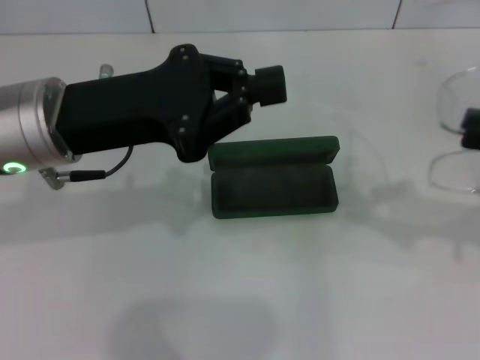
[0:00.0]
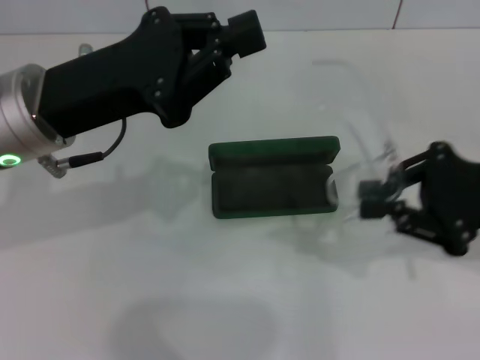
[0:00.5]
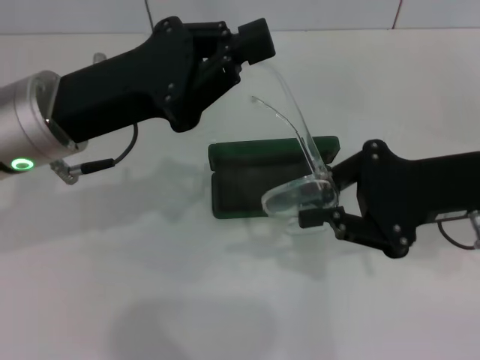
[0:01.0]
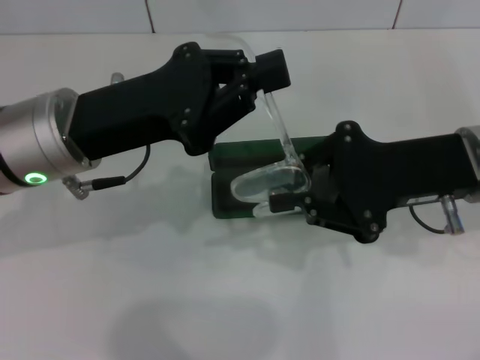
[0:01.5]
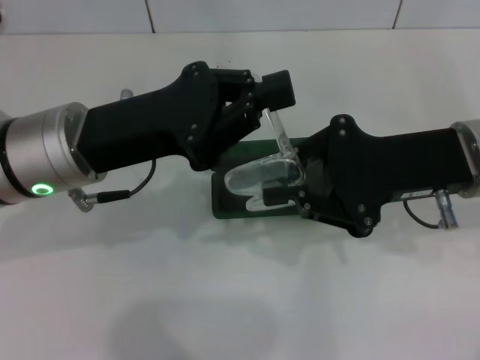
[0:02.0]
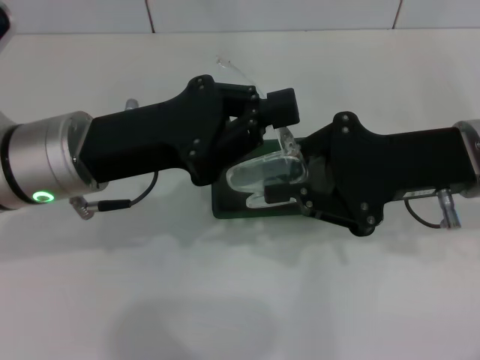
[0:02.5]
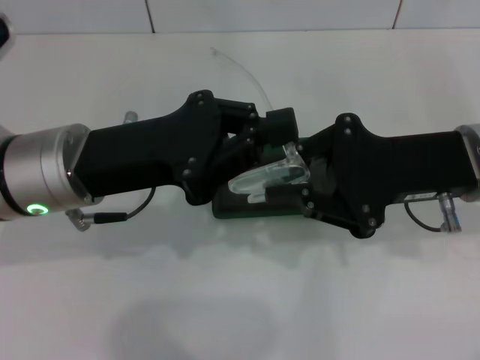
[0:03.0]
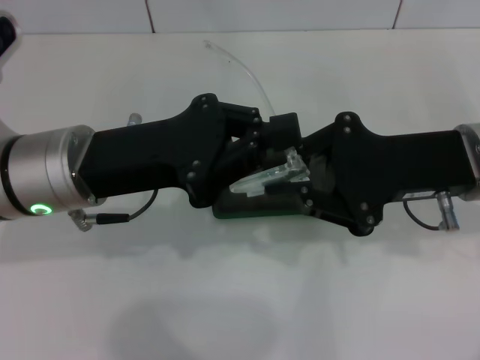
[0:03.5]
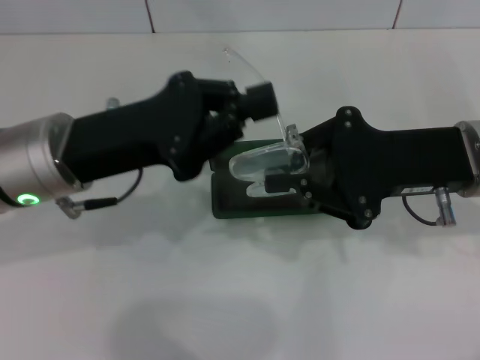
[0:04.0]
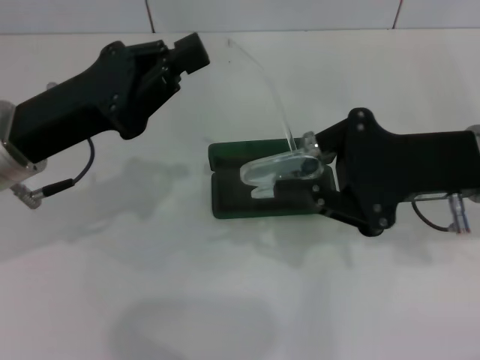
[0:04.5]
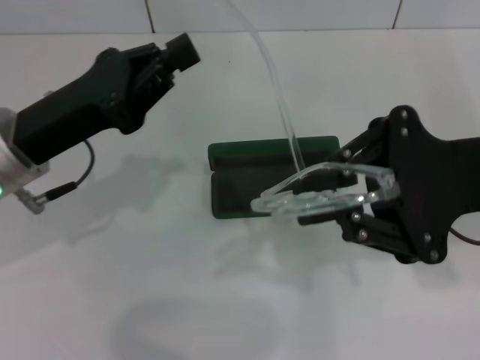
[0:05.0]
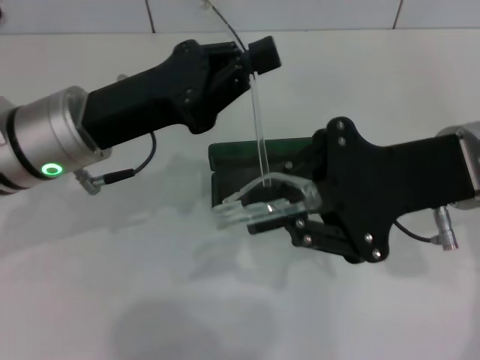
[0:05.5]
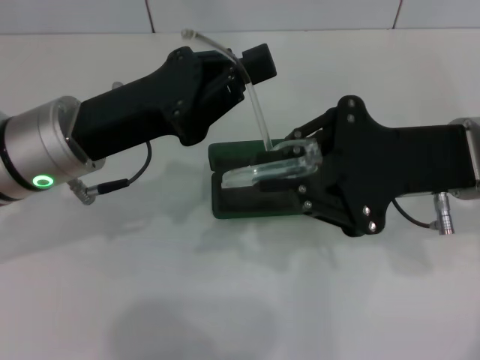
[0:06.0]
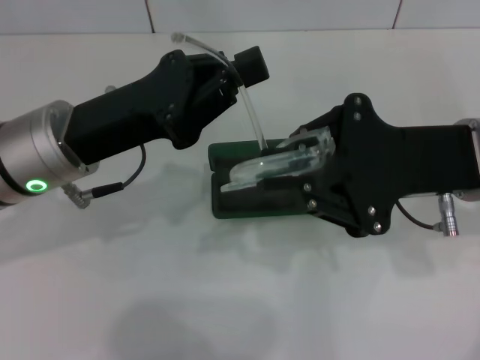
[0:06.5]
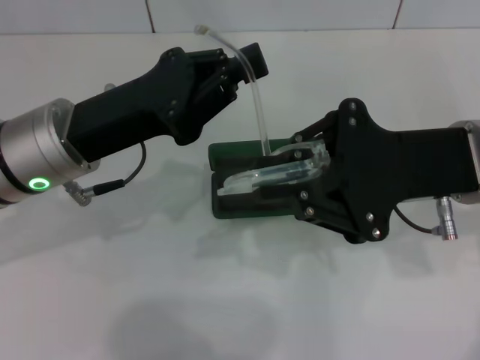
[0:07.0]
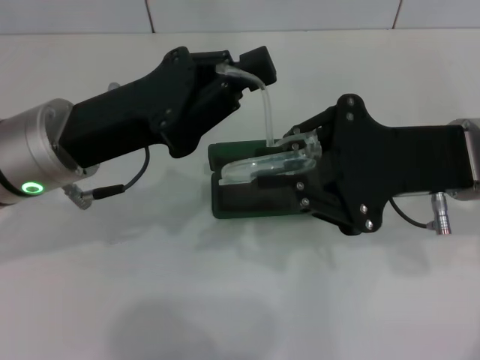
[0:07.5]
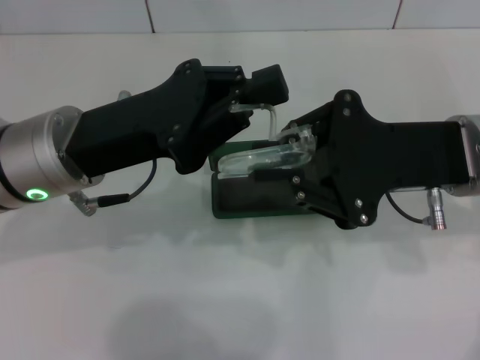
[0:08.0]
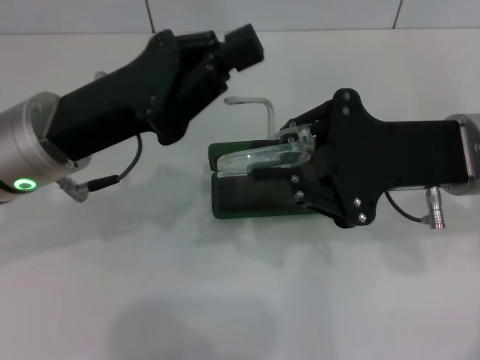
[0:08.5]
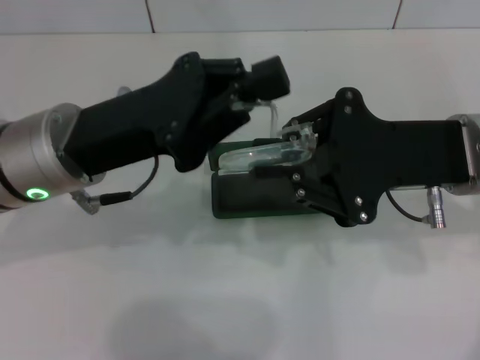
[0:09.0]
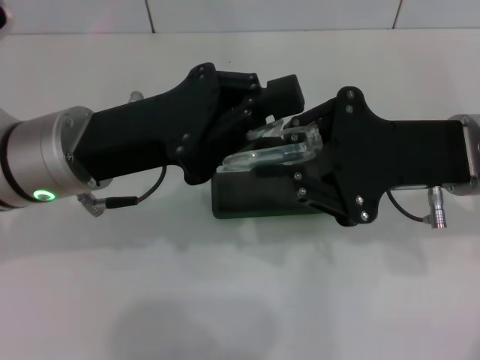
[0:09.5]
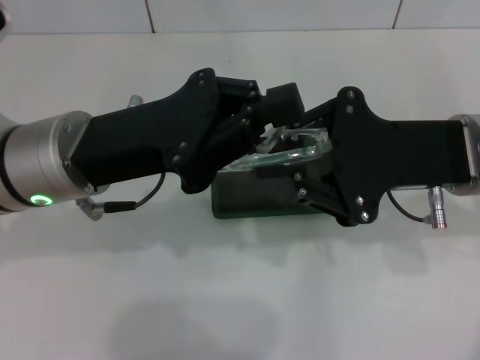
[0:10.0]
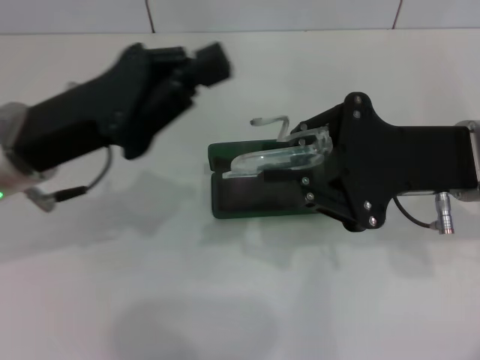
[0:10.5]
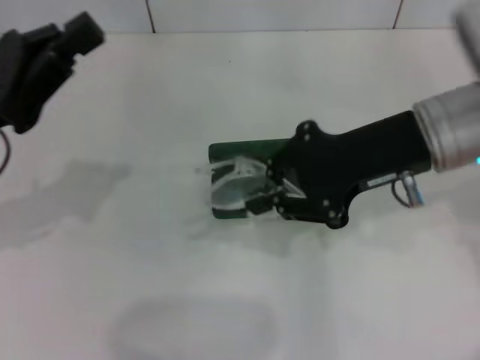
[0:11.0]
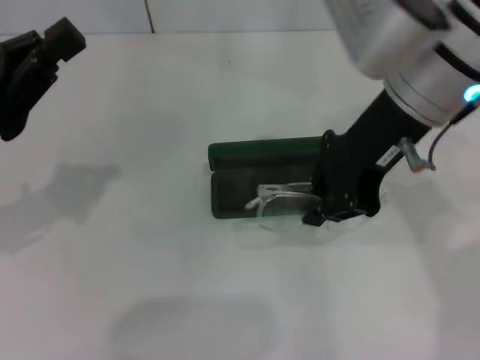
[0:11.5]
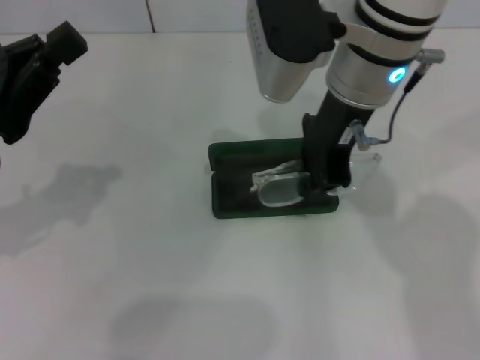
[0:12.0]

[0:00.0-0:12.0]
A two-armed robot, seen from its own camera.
Step, 0:00.0 to 0:10.0: Fold the frame with your left hand.
0:00.0 to 0:02.0: The right gripper travels to the left by some 15 cm.
0:02.0 to 0:04.0: The grippers move only a little.
0:06.0 to 0:10.0: The grippers make only small movements.
0:10.0 to 0:12.0: The right gripper is displaced to the left, forward and upward by about 15 cm. The left gripper shifts roughly 10 cm to the left.

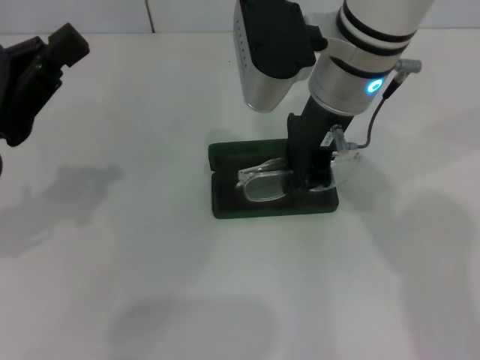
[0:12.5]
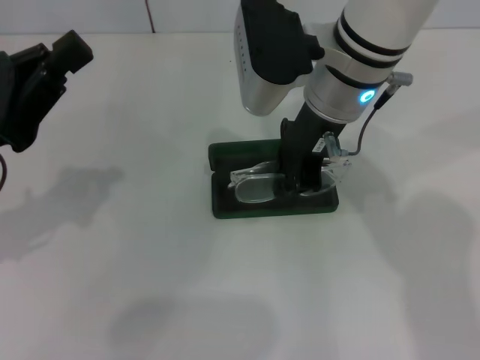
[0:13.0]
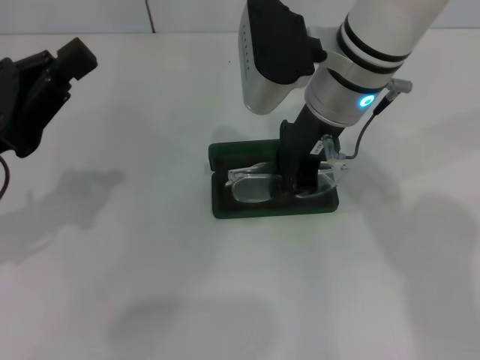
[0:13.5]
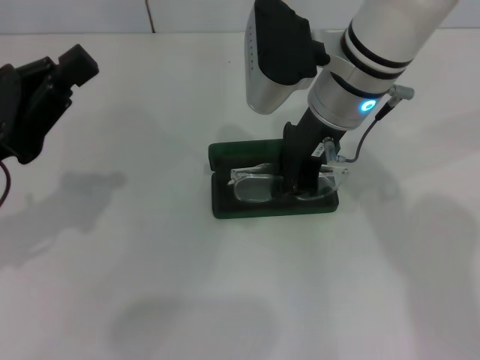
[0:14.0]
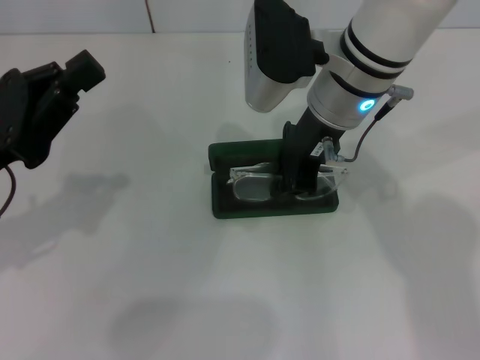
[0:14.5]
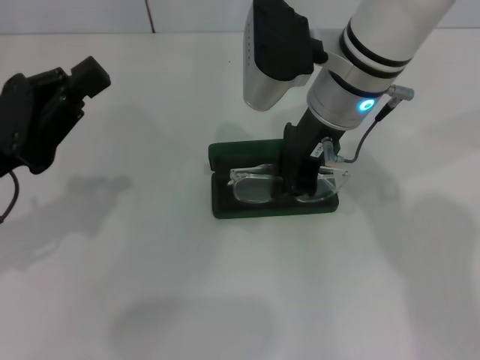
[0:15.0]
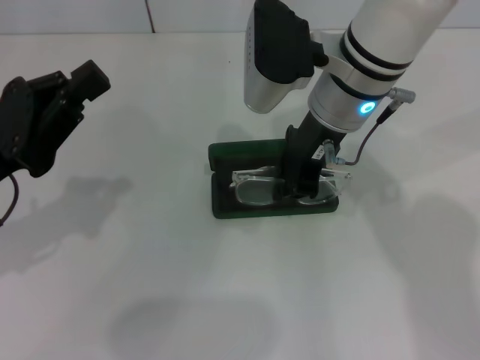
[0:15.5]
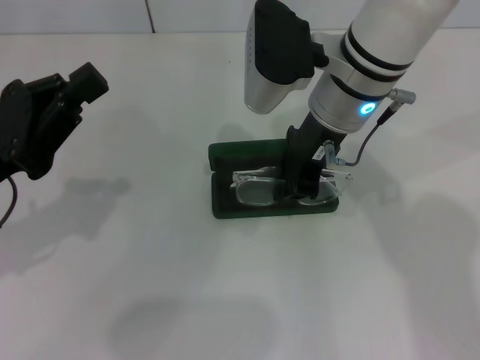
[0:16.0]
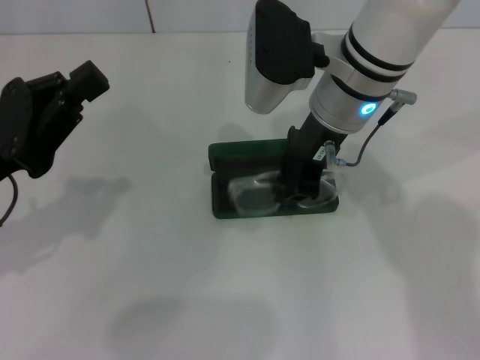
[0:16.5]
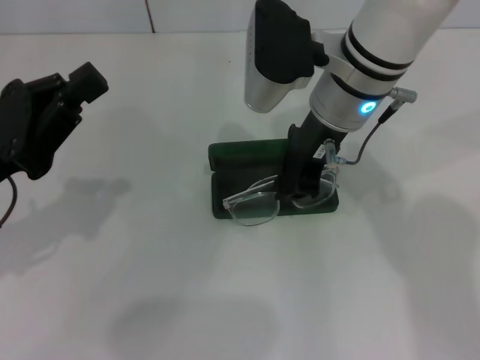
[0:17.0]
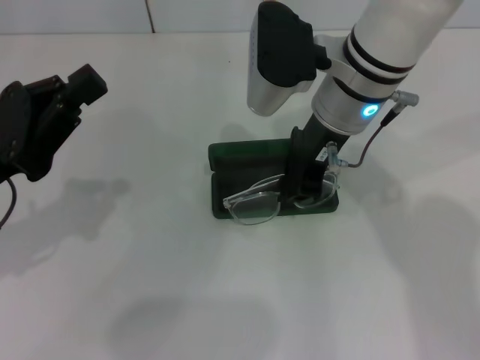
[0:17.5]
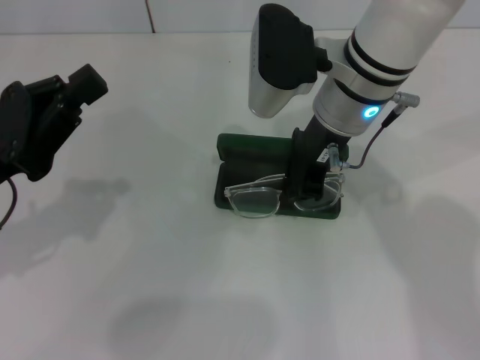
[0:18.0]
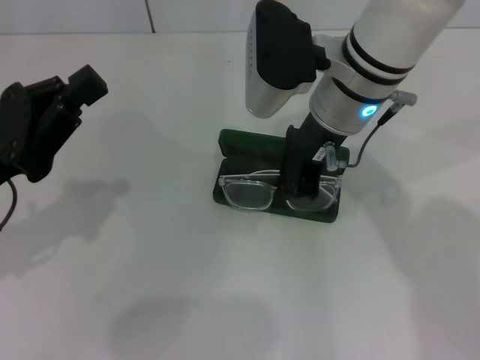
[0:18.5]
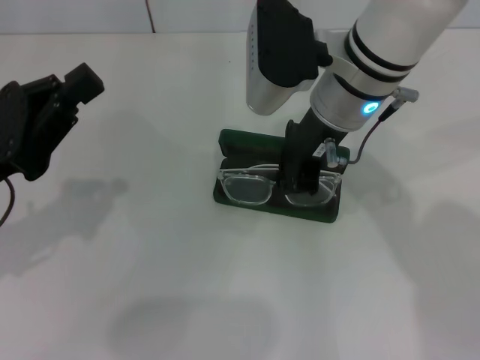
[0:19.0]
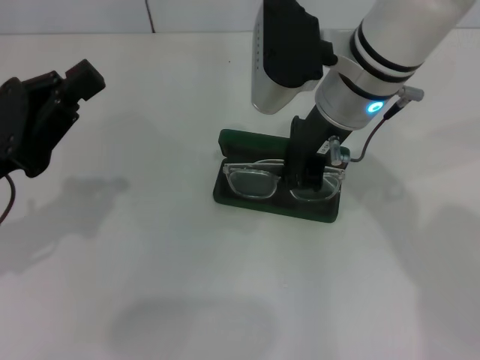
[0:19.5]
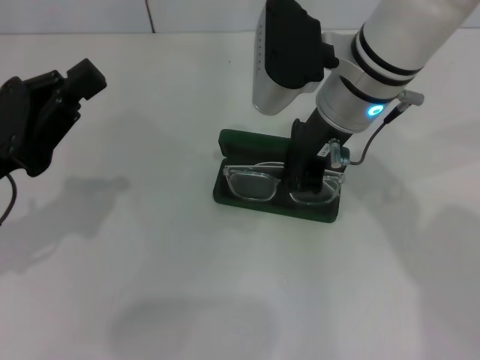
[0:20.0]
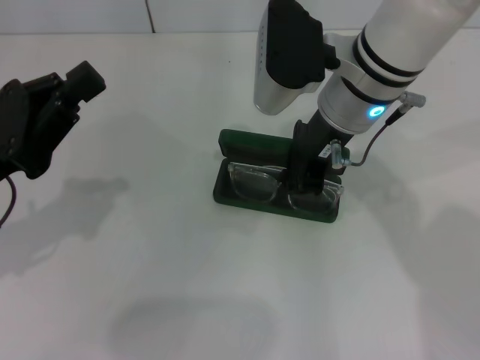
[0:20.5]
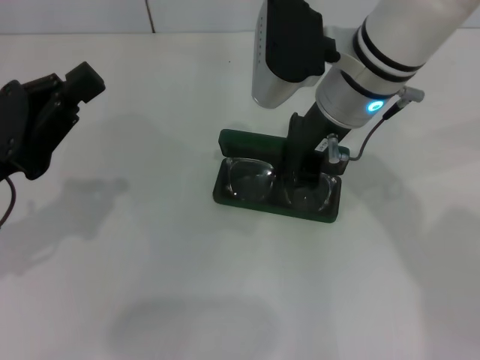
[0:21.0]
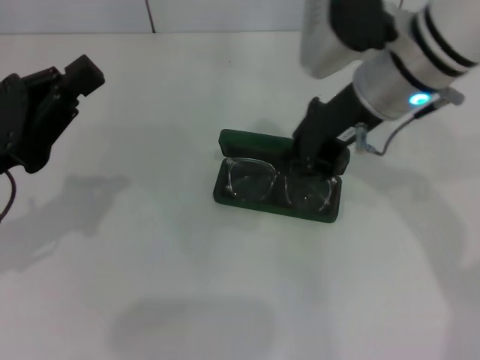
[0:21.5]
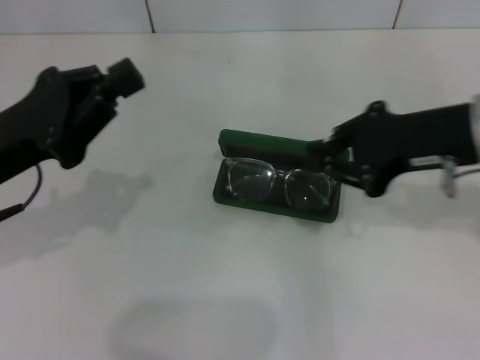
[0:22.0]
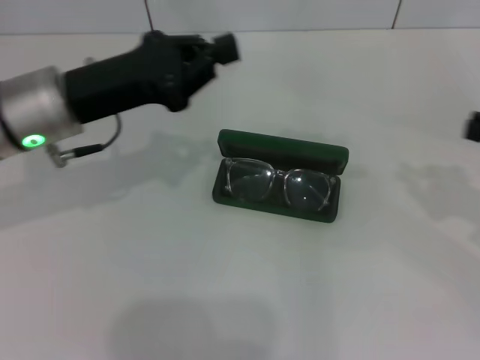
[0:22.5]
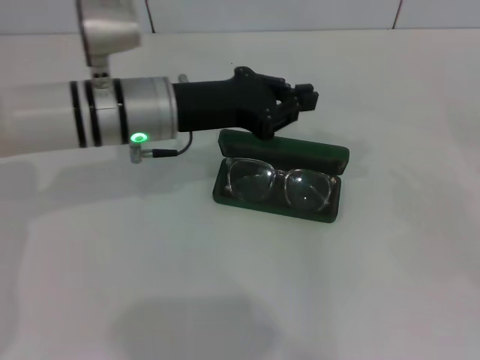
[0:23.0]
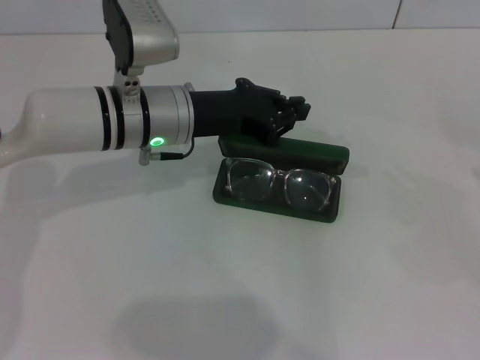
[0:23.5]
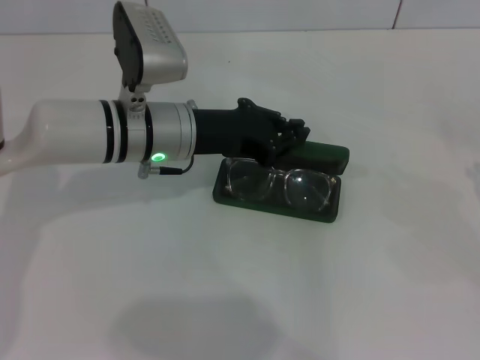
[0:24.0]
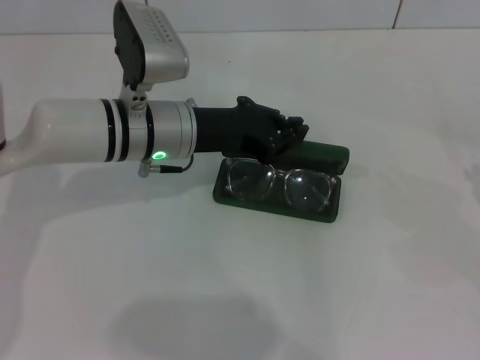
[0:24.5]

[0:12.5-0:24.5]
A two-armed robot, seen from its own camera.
Step, 0:12.5 to 0:20.5: Put the glasses into the case with your right hand.
0:12.5 to 0:14.5: The grippers make only small movements.
0:14.5 to 0:20.5: The two grippers keep their place.
0:20.5 to 0:22.5: The left gripper moves forward and to the right, roughly 10 cm. Meanwhile the right gripper travels to the right and backward by approximately 30 cm.
0:22.5 to 0:24.5: The right gripper moves to the right, approximately 5 cm. The left gripper moves to the right, some 10 cm.

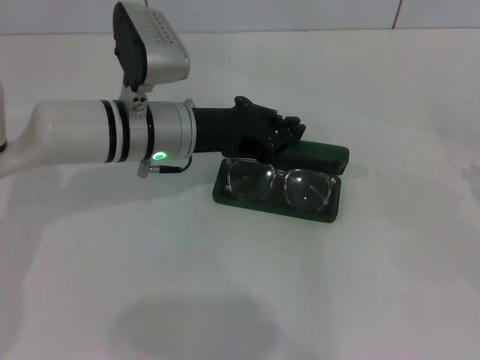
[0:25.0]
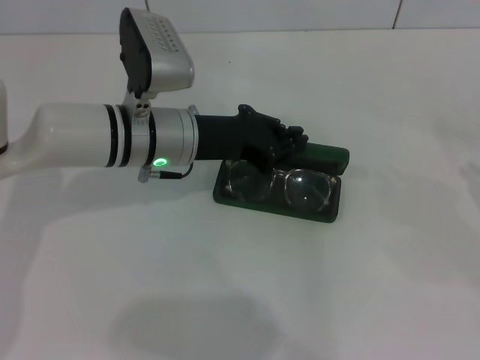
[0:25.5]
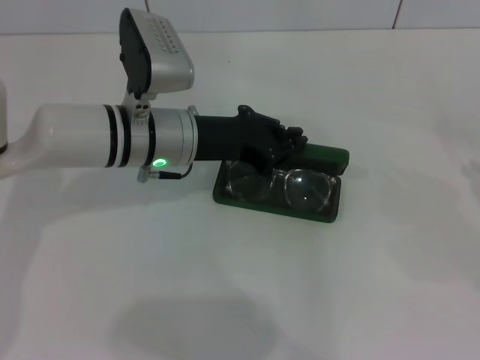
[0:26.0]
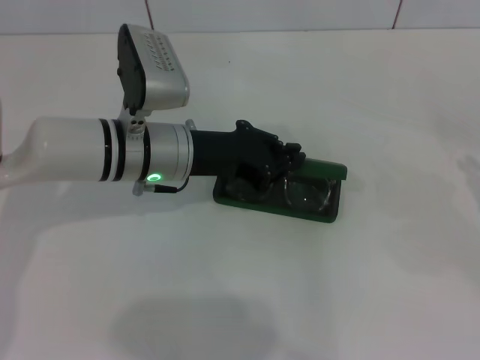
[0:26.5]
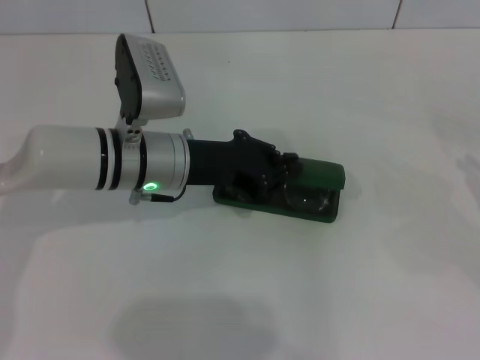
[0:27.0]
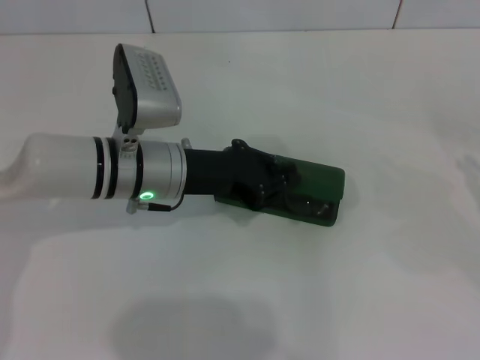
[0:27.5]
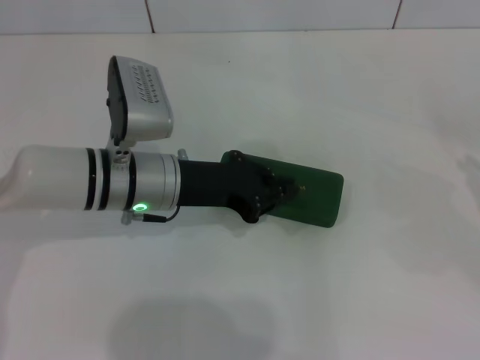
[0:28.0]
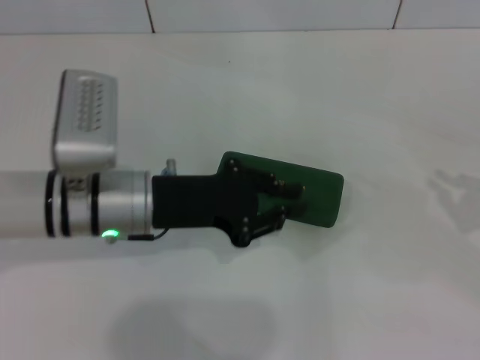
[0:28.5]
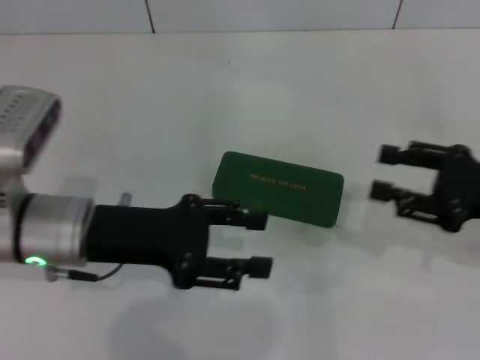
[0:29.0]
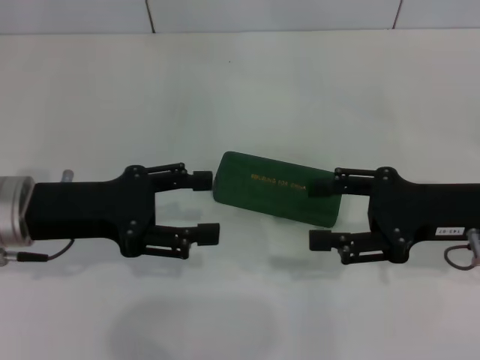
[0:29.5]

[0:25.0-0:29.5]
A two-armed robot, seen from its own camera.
Step, 0:25.0 to 0:27.5: Close the glasses case with your left hand.
0:25.0 to 0:27.0: There are only small adjustments of the grippers.
0:27.0 to 0:29.5: The left gripper heads to the left and backward, covering some 15 cm, and opens; the right gripper moves to the left, roughly 15 cm, and opens.
